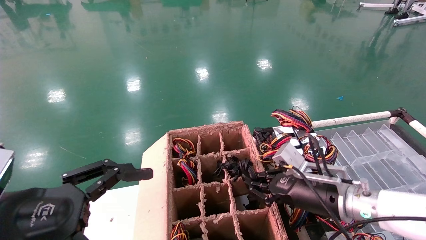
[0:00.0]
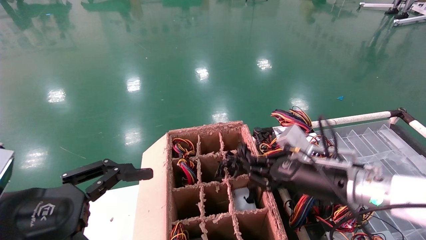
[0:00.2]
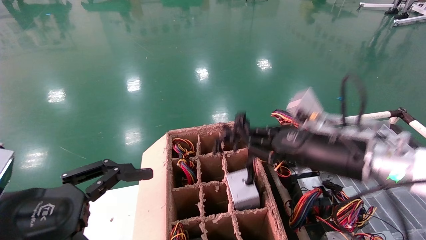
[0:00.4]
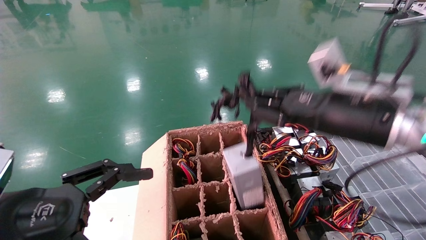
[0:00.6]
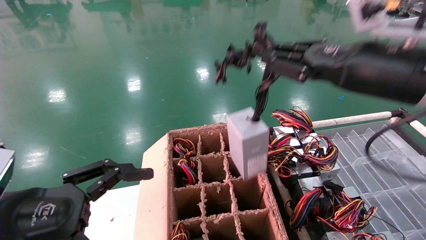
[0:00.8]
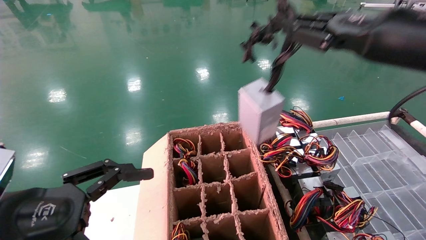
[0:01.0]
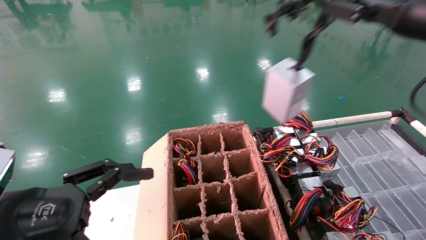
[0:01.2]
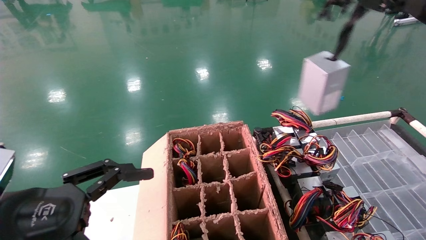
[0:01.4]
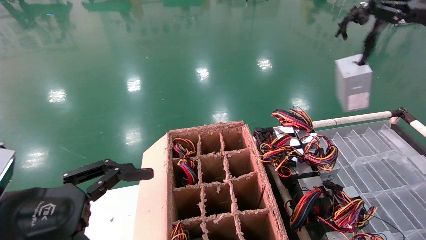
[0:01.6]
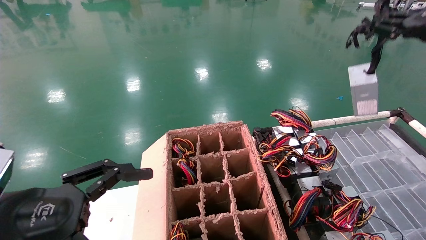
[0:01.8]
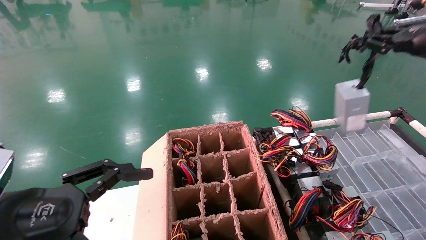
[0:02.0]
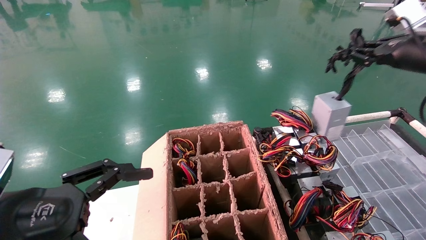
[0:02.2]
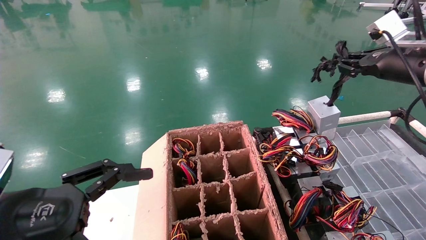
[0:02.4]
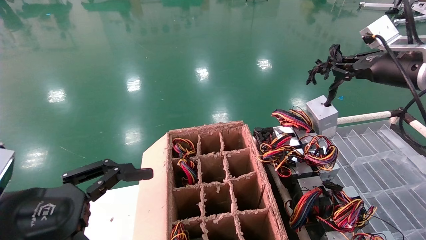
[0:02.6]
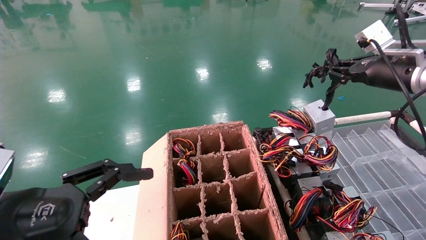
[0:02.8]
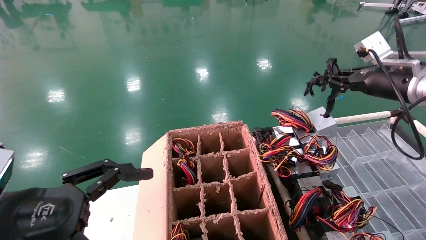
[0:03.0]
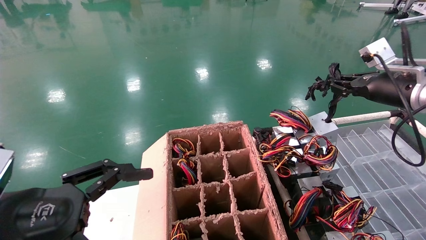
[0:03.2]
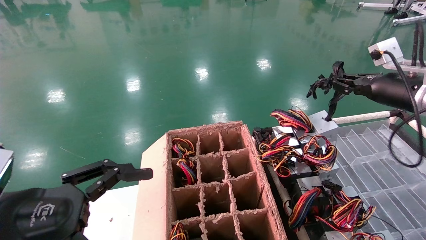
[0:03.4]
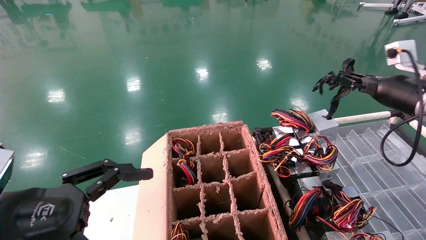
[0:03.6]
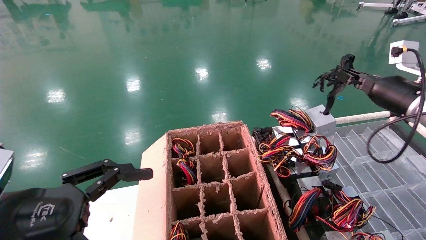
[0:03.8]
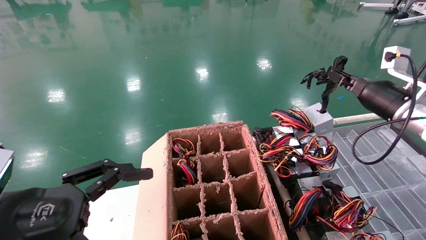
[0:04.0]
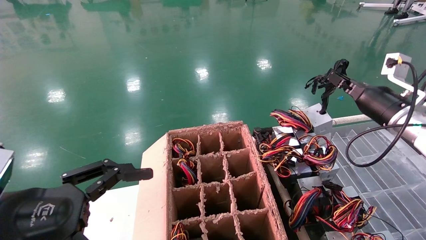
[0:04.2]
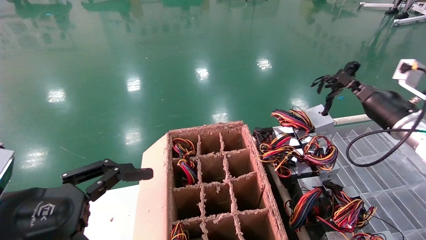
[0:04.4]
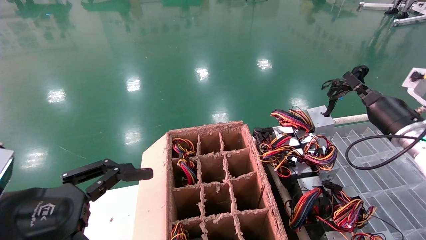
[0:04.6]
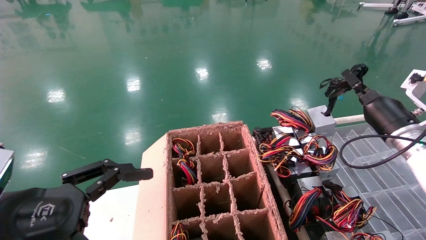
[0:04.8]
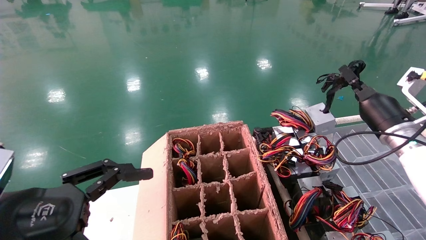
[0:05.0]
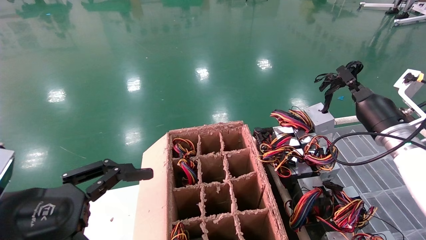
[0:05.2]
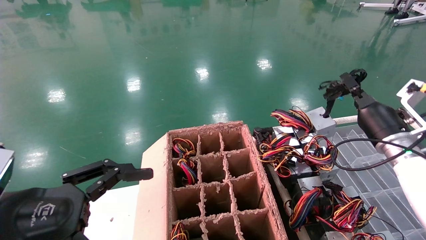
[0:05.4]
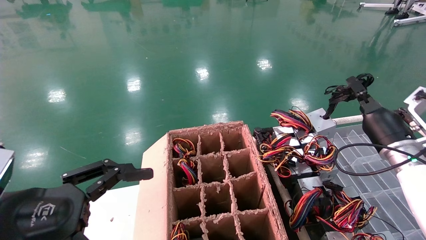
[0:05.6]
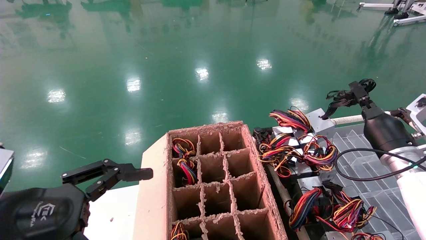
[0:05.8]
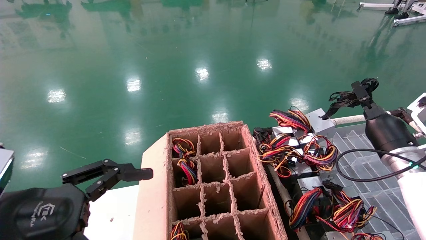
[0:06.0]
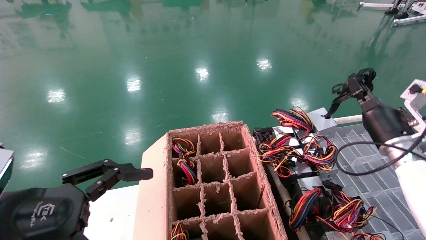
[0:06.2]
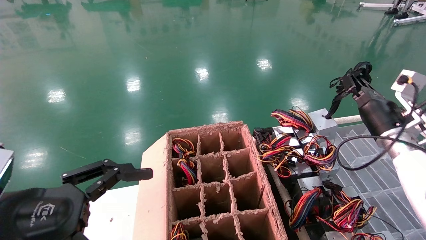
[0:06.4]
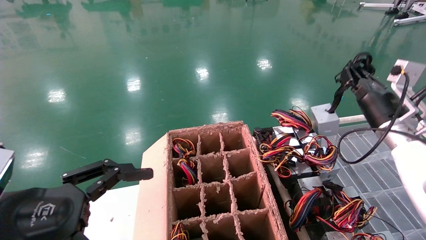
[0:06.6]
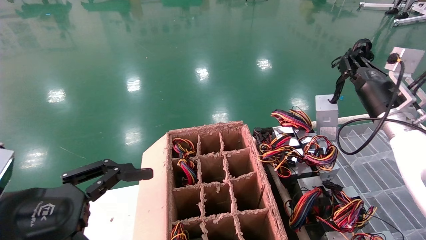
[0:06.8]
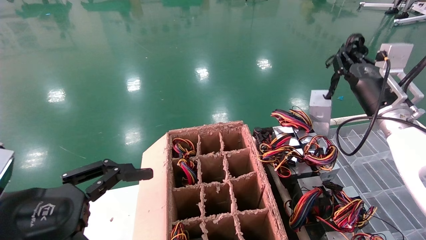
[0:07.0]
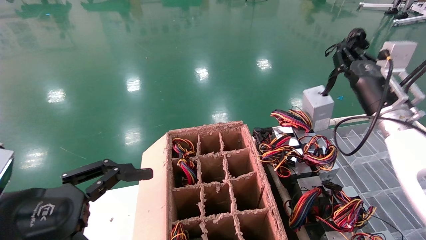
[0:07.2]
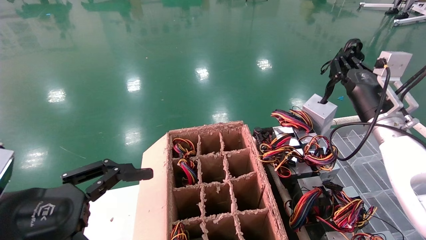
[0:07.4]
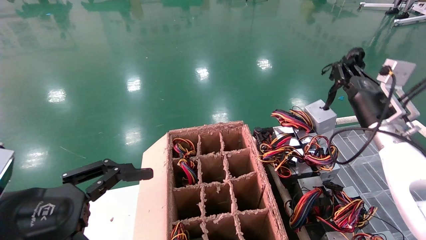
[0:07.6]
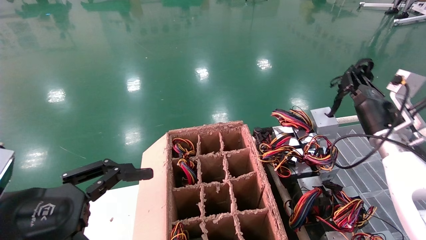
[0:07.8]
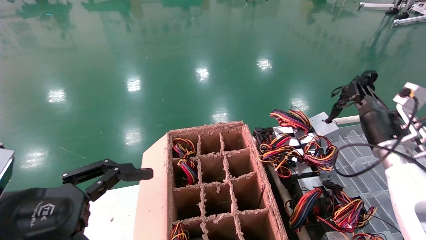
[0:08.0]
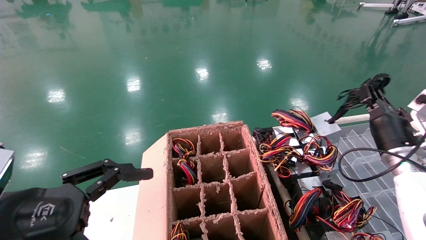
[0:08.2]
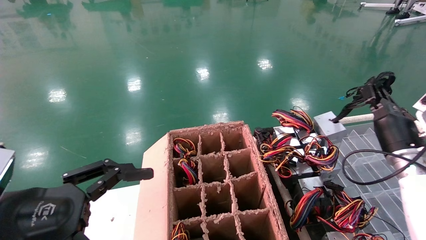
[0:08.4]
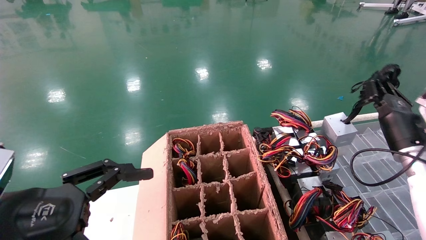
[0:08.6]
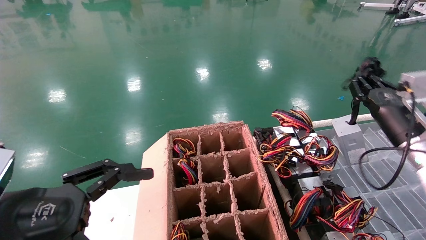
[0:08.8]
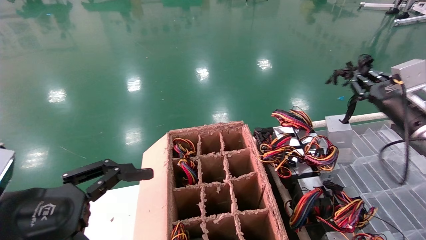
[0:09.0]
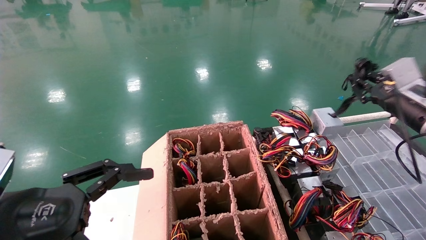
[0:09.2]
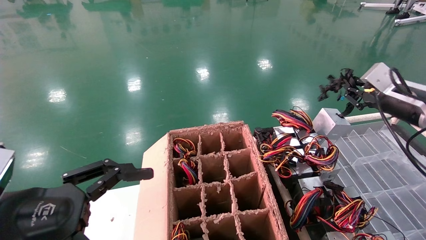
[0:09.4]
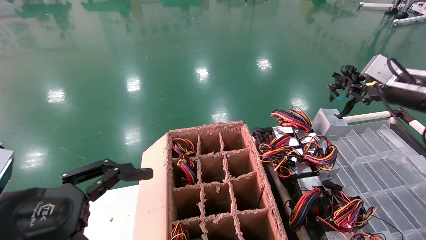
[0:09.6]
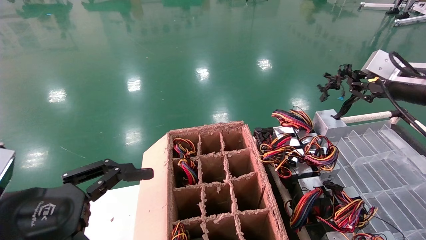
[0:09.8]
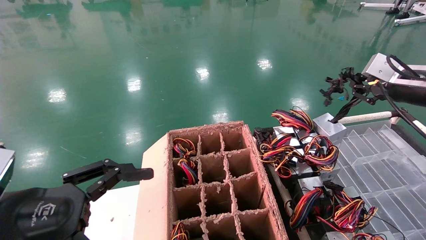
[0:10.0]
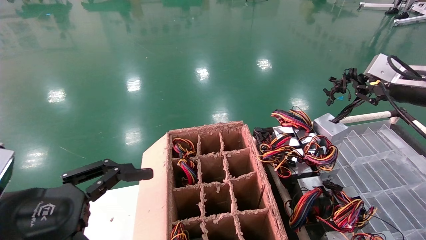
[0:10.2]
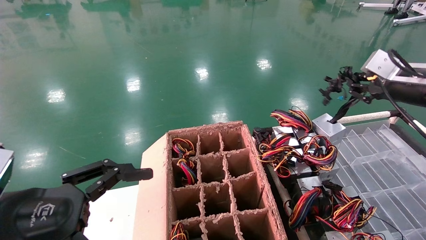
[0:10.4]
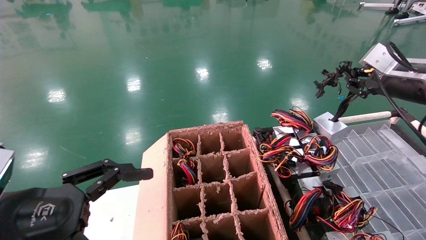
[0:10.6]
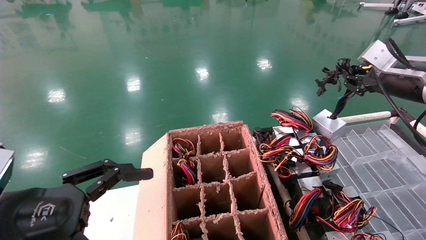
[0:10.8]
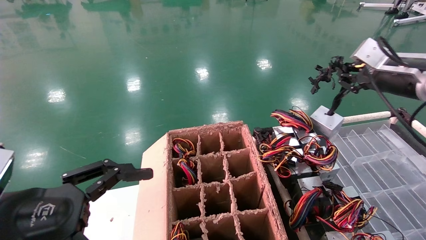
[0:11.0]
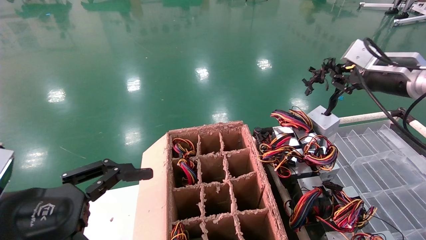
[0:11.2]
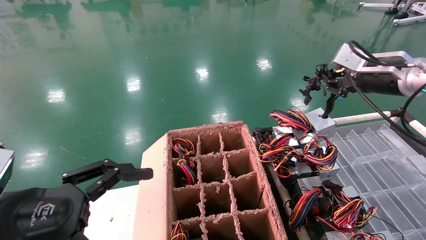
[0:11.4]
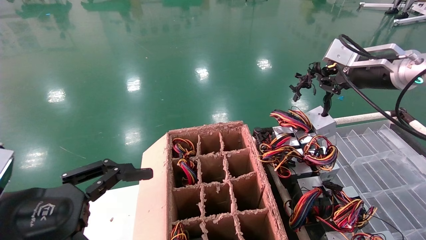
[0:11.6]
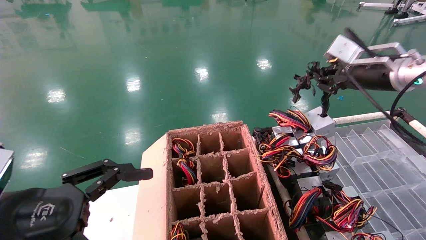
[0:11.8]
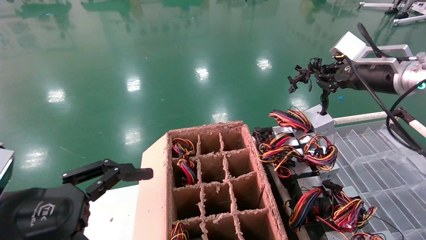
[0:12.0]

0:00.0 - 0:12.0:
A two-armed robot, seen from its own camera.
0:00.0 - 0:01.6: The right gripper is displaced upward and to the right by some 35 cm.
0:01.6 - 0:03.0: The right gripper goes approximately 10 cm downward and forward.
0:03.0 - 0:04.4: The right gripper is displaced downward by some 10 cm.
0:04.4 - 0:06.0: The right gripper heads downward, covering some 5 cm.
0:07.6 - 0:09.0: The right gripper is displaced to the right by some 5 cm.
0:09.0 - 0:10.4: The right gripper heads upward, covering approximately 10 cm.
0:10.4 - 0:12.0: The right gripper goes about 5 cm to the left.

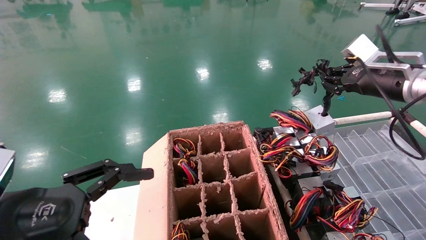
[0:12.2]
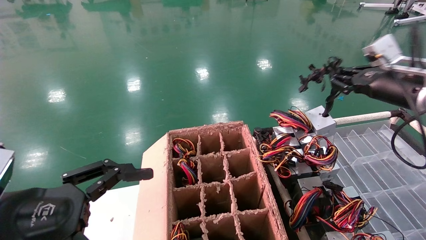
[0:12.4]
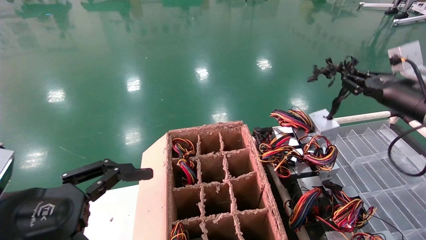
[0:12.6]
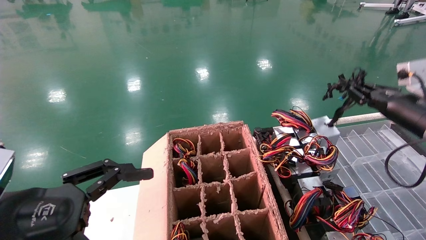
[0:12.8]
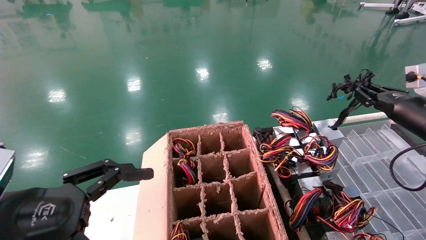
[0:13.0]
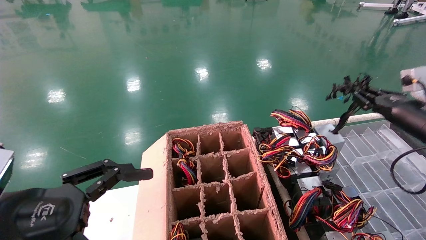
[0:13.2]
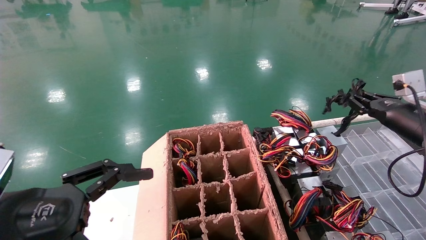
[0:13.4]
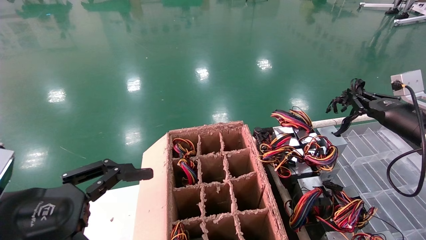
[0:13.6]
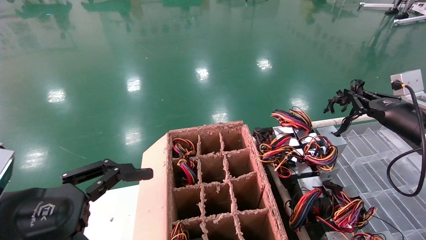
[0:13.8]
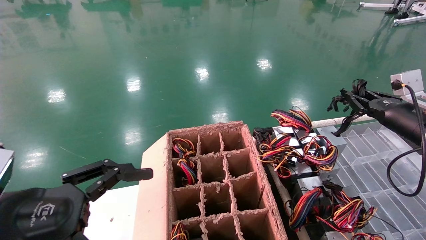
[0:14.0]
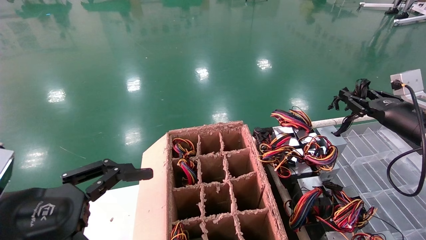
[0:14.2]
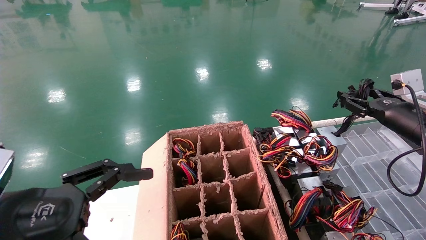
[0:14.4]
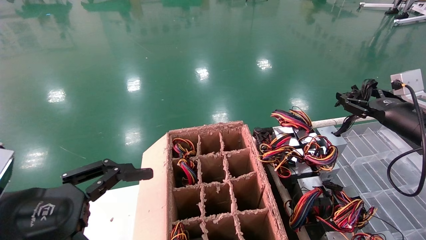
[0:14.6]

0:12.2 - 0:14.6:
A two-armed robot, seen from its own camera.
0:12.2 - 0:13.4: The right gripper heads downward and to the right, covering approximately 10 cm.
0:13.4 - 0:14.6: The right gripper opens.
